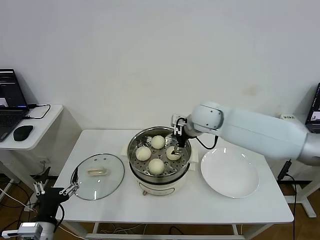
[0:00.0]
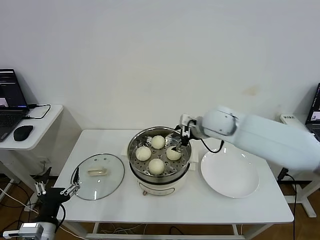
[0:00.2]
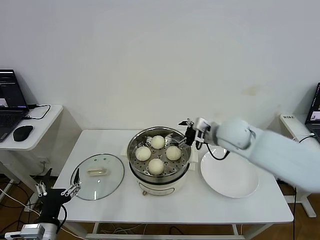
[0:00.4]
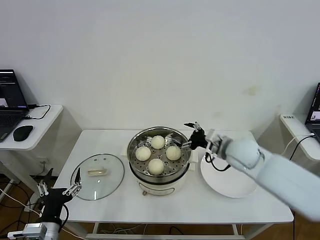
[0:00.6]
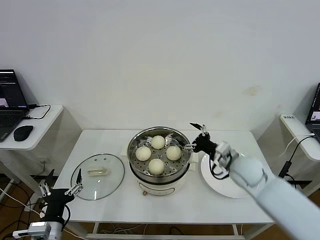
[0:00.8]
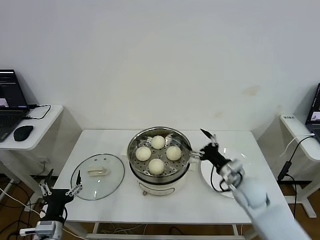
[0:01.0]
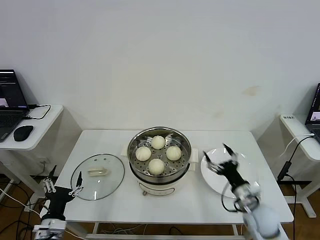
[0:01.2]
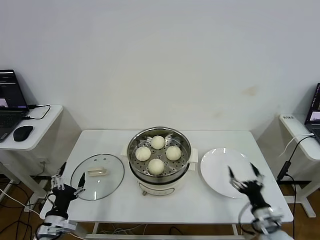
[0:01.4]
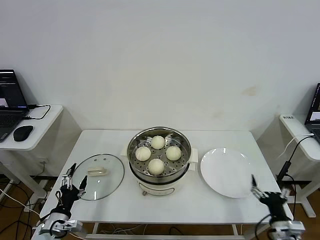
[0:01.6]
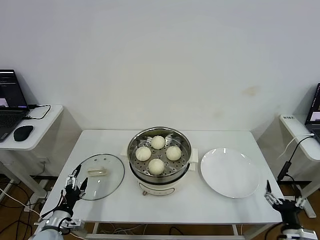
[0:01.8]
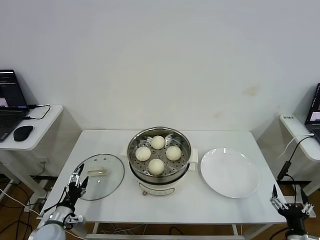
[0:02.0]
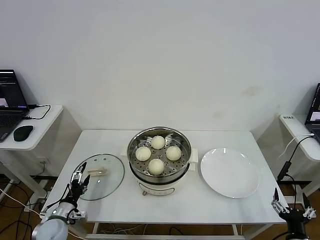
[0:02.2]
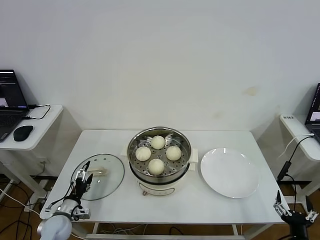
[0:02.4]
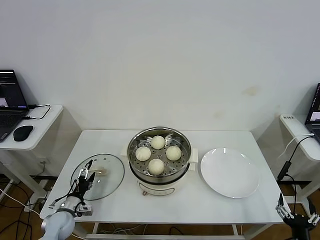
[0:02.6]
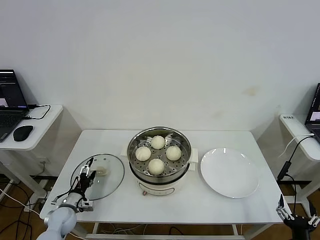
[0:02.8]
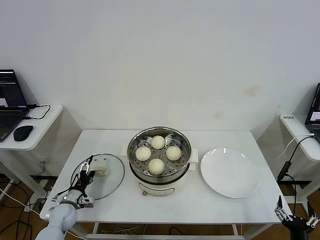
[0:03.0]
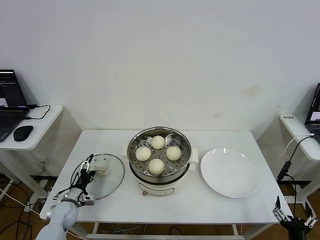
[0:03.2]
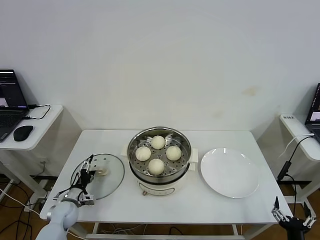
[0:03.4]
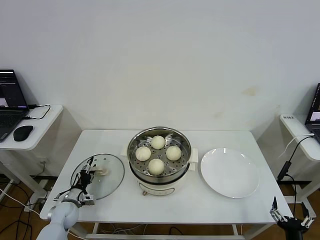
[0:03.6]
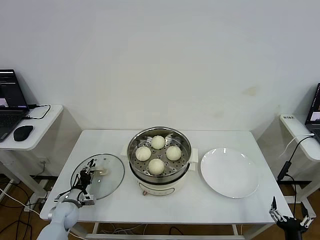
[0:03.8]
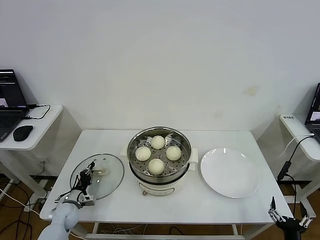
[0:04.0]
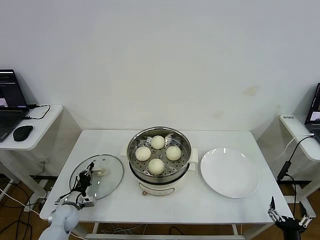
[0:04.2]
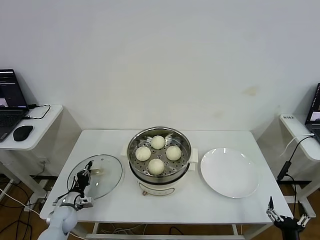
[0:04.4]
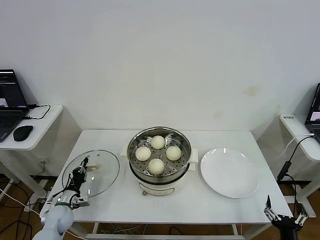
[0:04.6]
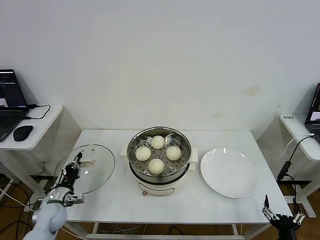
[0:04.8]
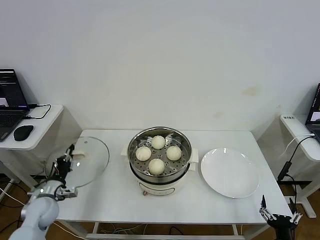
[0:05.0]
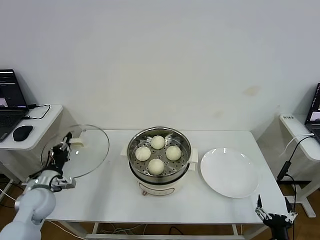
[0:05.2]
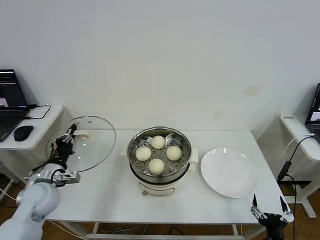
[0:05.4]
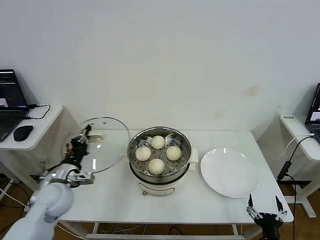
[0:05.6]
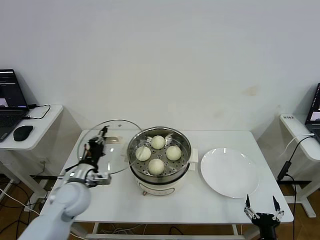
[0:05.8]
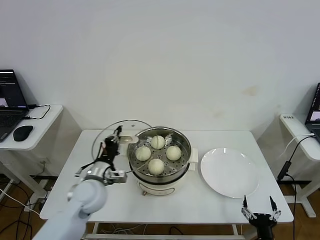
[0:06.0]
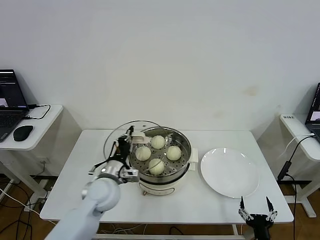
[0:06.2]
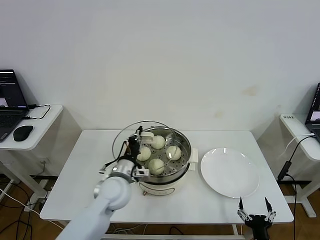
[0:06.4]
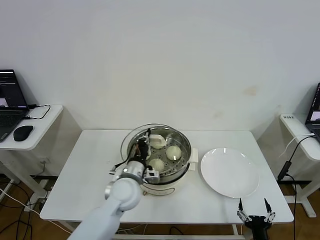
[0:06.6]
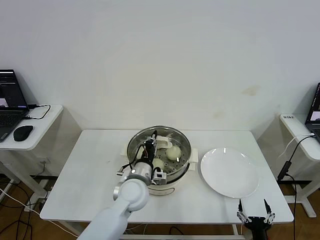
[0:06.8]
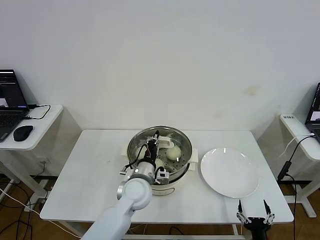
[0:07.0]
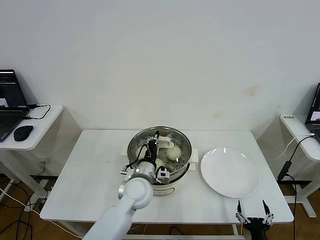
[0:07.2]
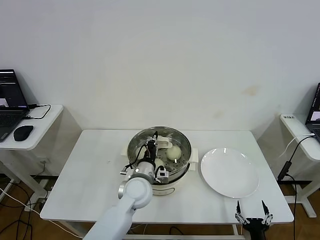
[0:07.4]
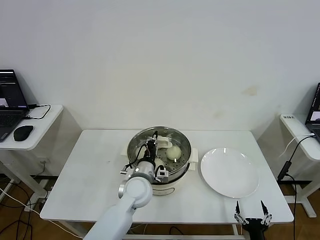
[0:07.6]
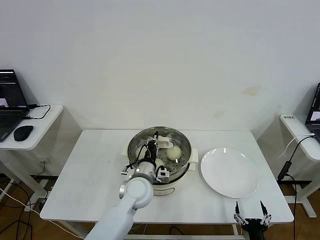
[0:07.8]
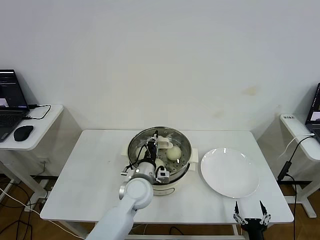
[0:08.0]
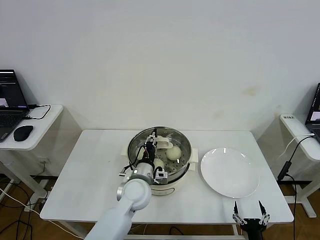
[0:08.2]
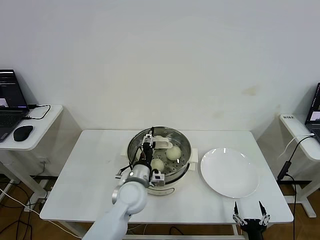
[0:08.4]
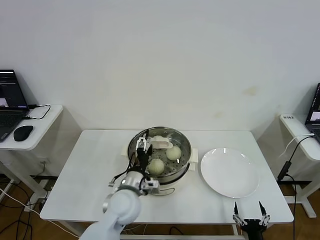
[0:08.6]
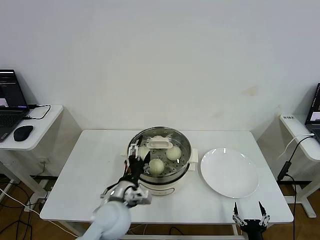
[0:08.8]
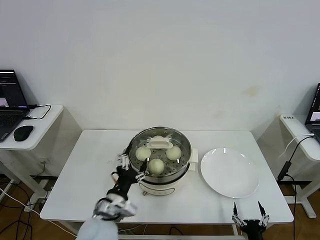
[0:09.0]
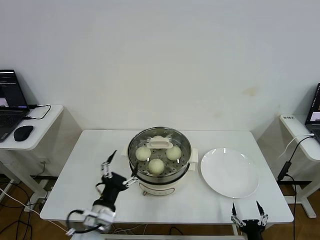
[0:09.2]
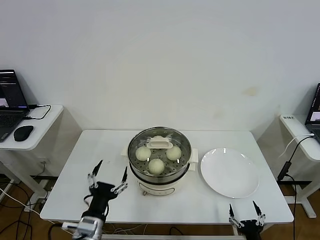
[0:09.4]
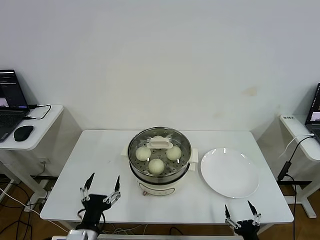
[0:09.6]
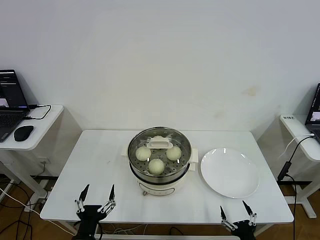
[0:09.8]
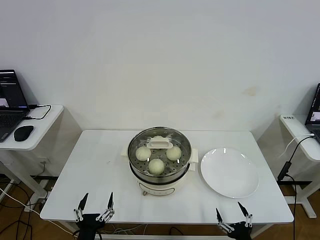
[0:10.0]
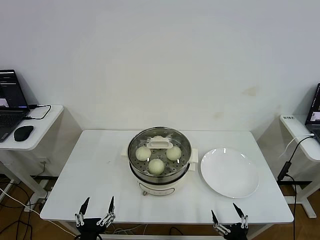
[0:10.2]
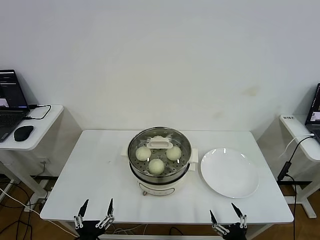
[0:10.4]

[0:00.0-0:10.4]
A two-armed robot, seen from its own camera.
Step, 0:00.0 to 0:04.2: Grasp the pot lid with left gripper.
Step, 0:04.4 to 0:08.2: Place the pot lid on the steamer with left gripper.
0:00.0 to 0:01.4: The left gripper shifts roughly 5 cm downward. Meanwhile the right gripper moves backward, downward and to the right, roughly 40 cm.
0:01.4 to 0:03.0: The left gripper moves forward and downward, approximately 15 cm; the right gripper shifts about 10 cm backward.
0:03.0 to 0:04.4: The left gripper closes.
0:04.4 to 0:06.0: The right gripper heads to the left, covering approximately 5 cm; the left gripper travels upward and to the right by approximately 25 cm.
0:06.0 to 0:07.4: The left gripper goes roughly 15 cm to the right.
0:07.4 to 0:09.0: The left gripper heads backward and to the left, covering approximately 15 cm, and opens its fingers.
0:09.0 to 0:10.4: The left gripper goes roughly 20 cm backward, downward and to the left.

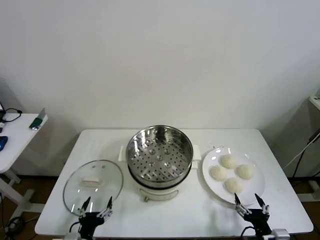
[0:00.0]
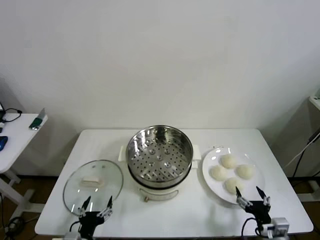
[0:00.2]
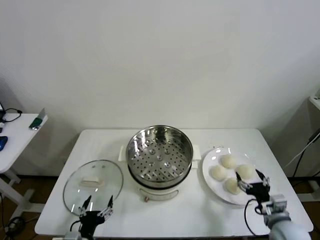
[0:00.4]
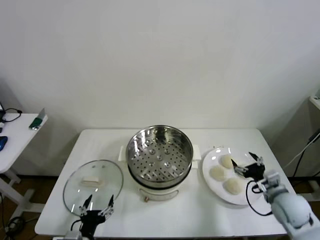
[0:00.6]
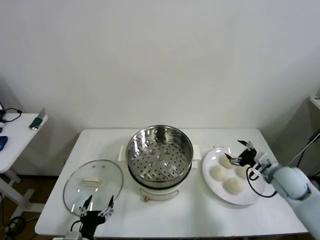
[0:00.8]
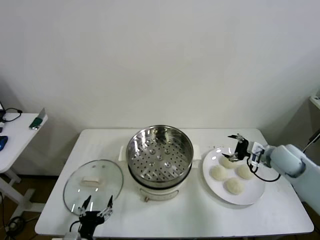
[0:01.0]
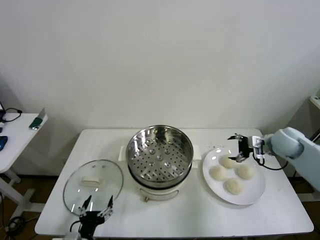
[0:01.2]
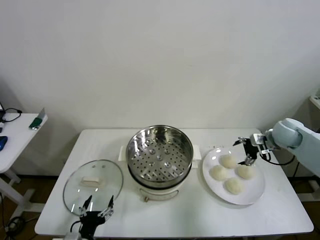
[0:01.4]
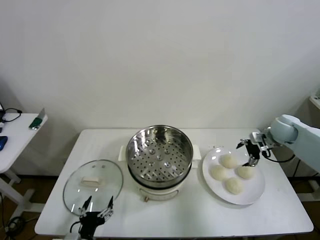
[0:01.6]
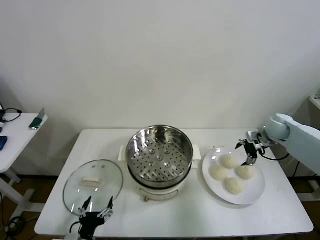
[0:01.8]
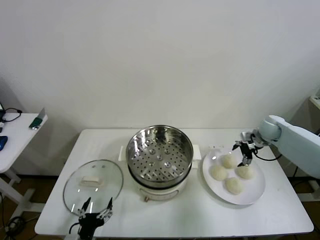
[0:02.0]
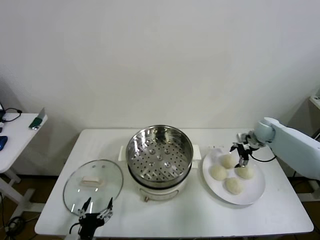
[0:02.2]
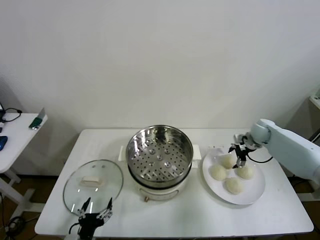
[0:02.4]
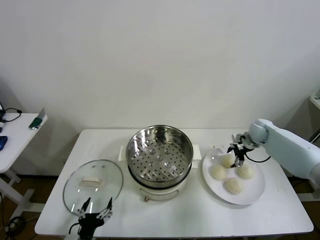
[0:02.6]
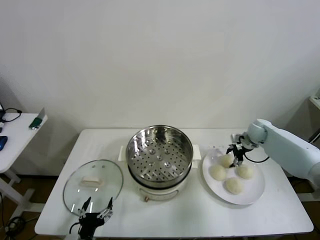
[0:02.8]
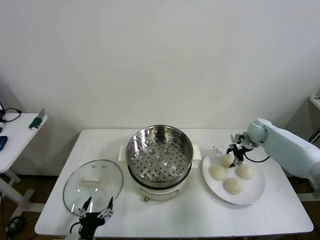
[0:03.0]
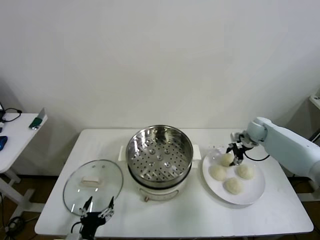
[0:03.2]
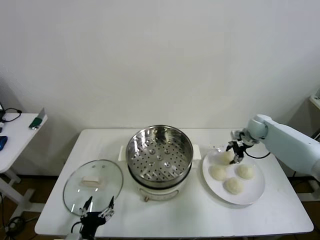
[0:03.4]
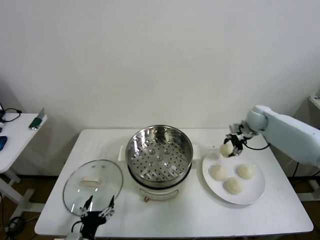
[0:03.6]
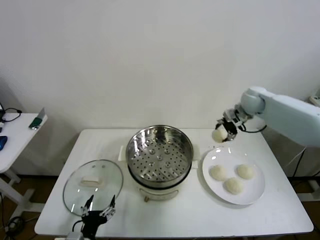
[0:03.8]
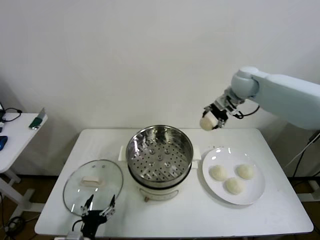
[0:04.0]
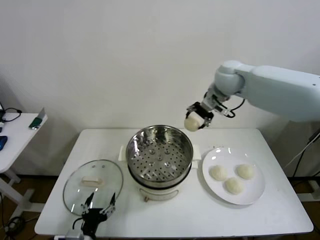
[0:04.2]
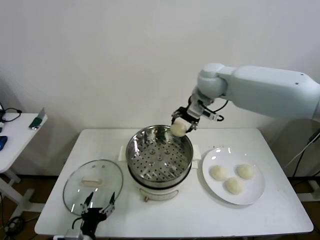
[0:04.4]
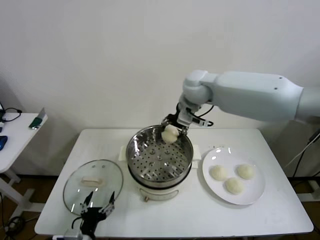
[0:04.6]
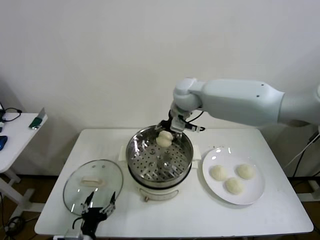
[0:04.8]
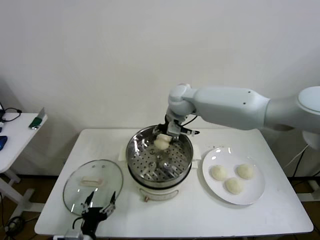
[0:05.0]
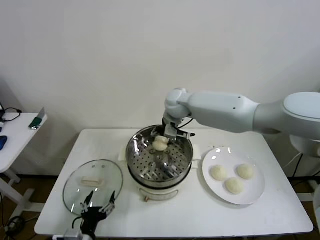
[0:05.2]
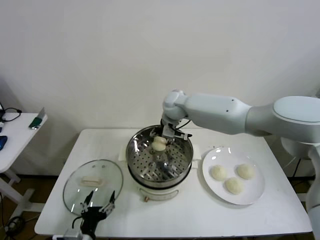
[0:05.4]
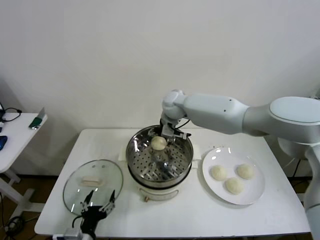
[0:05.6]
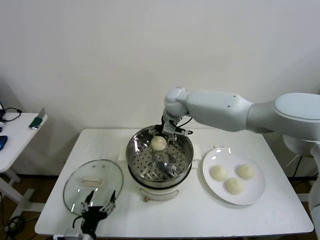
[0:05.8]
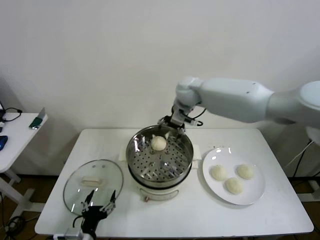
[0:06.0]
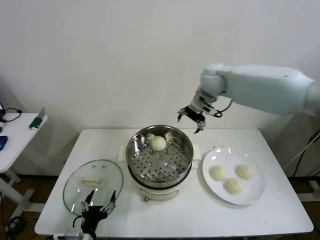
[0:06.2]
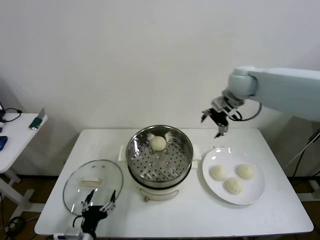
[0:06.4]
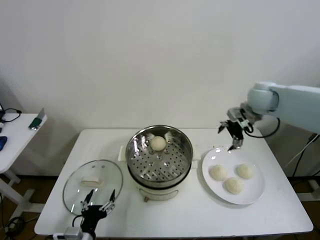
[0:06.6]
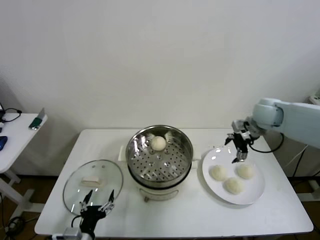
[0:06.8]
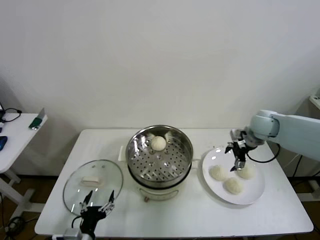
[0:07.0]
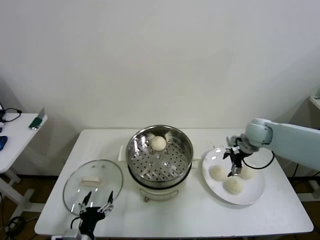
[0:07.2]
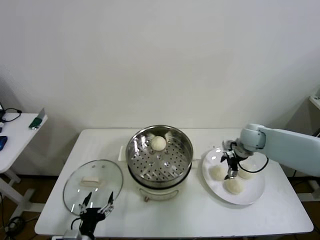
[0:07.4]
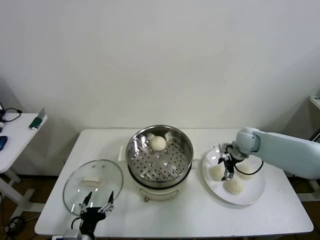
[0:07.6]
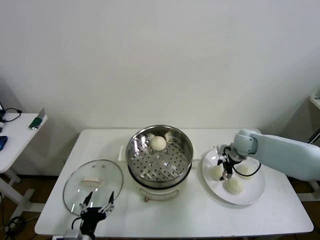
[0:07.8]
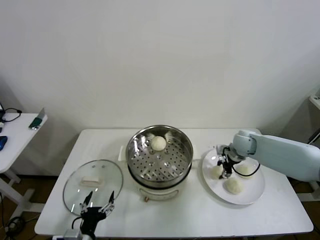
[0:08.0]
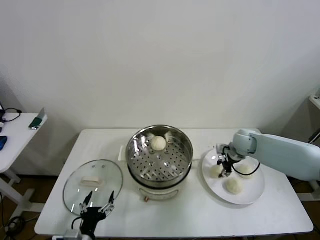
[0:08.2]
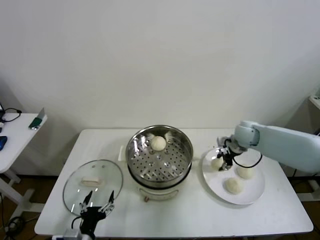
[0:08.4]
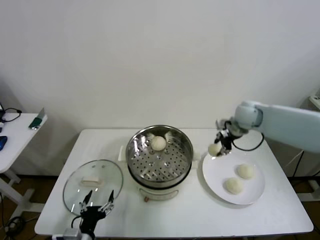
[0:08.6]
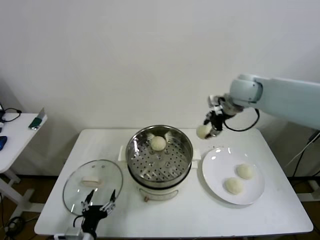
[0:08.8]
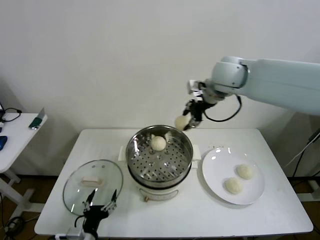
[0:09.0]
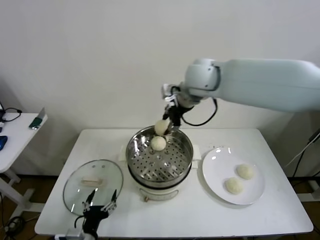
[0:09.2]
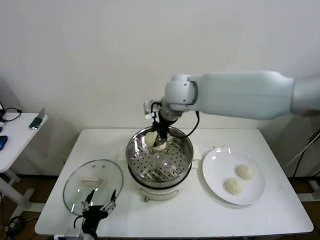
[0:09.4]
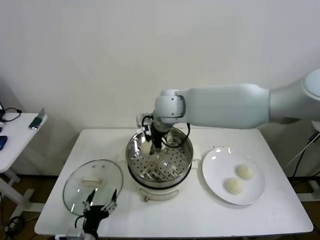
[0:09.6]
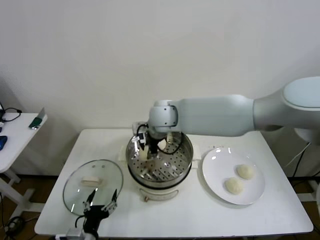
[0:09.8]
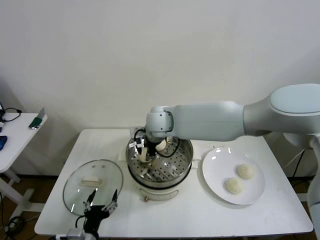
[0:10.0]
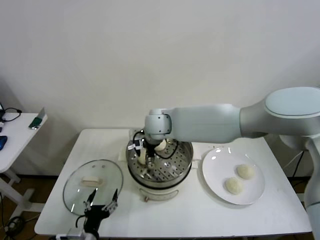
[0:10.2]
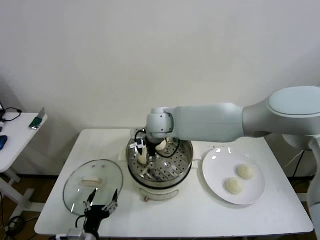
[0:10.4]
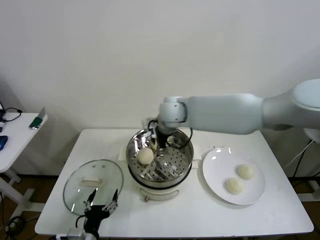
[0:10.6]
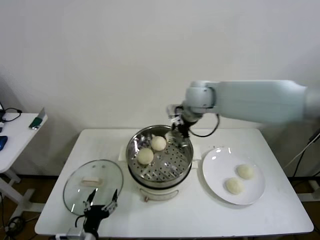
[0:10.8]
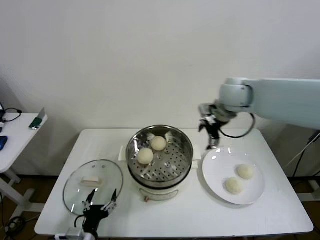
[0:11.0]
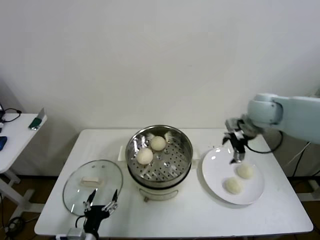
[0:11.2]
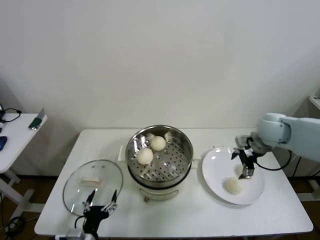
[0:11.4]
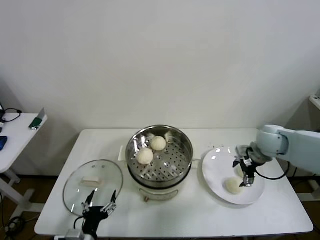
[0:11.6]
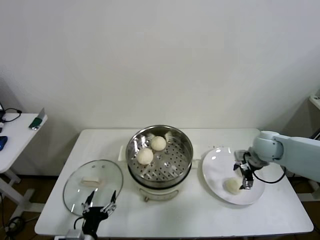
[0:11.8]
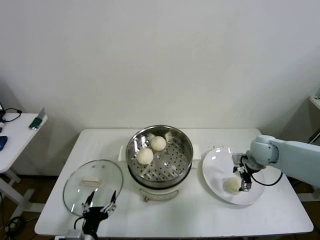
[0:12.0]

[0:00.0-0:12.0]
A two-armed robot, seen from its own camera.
Step, 0:00.0 to 0:02.6: Grasp the baozi in the plate with right gripper.
Step, 0:03.0 to 0:05.8: Place the baozi on the steamer with right gripper.
Step, 0:06.0 to 0:07.8: Grasp the baozi in the plate with right gripper.
Step, 0:08.2 to 0:10.4: Place the baozi on the steamer with right gripper.
0:01.6 to 0:03.0: The right gripper is displaced downward by roughly 5 cm, and closes up.
0:03.0 to 0:04.4: The right gripper is displaced to the left and upward by some 35 cm.
0:04.4 to 0:06.0: The right gripper travels downward and back again, some 10 cm each way, and opens its fingers.
0:06.0 to 0:07.6: The right gripper goes some 30 cm downward and to the right.
0:07.6 to 0:09.0: The right gripper shifts approximately 35 cm upward and to the left, and closes.
0:09.0 to 0:10.4: The right gripper moves to the left and downward, roughly 20 cm, and opens its fingers.
0:10.4 to 0:12.0: The right gripper heads to the right, covering roughly 35 cm.
